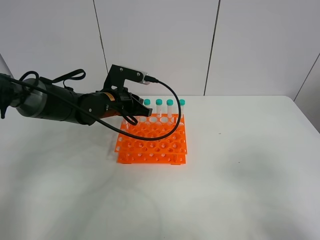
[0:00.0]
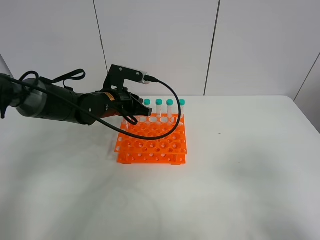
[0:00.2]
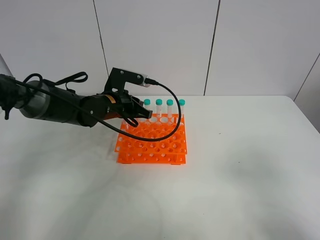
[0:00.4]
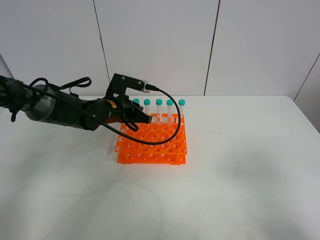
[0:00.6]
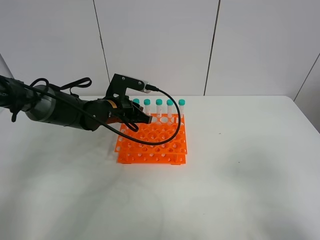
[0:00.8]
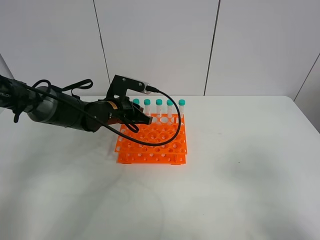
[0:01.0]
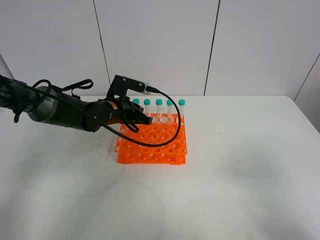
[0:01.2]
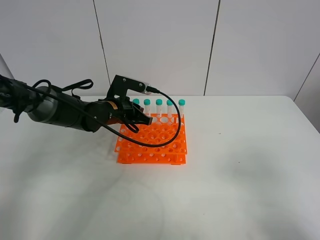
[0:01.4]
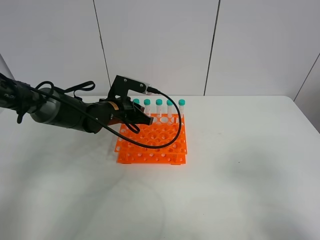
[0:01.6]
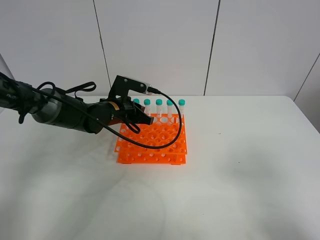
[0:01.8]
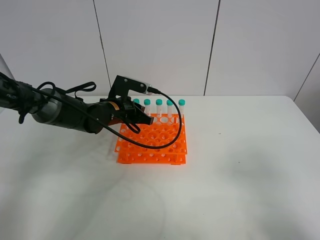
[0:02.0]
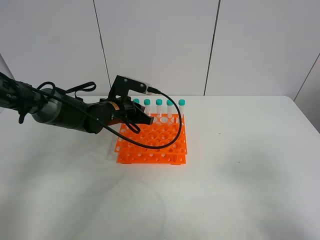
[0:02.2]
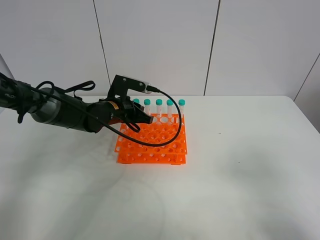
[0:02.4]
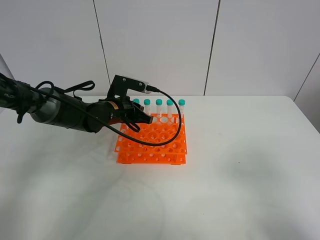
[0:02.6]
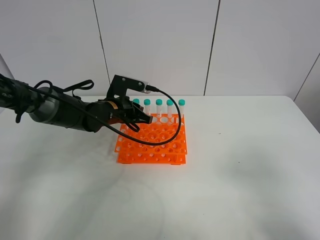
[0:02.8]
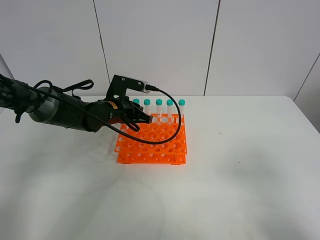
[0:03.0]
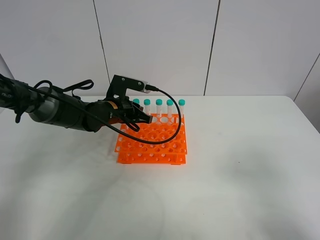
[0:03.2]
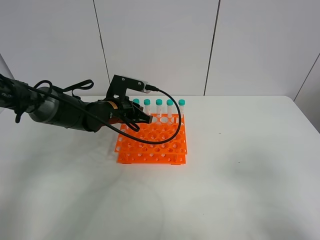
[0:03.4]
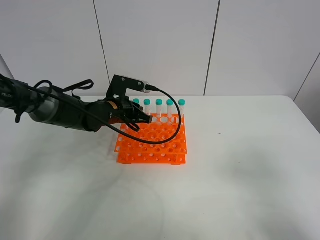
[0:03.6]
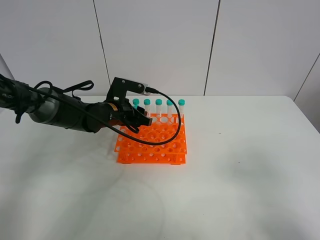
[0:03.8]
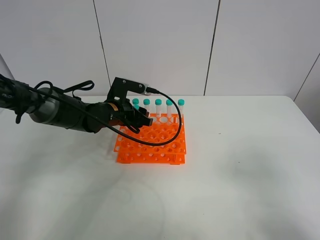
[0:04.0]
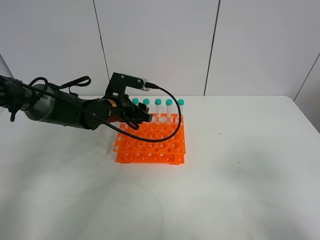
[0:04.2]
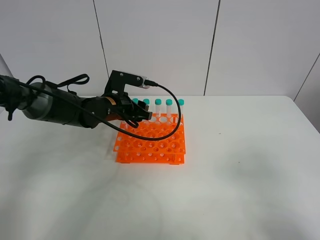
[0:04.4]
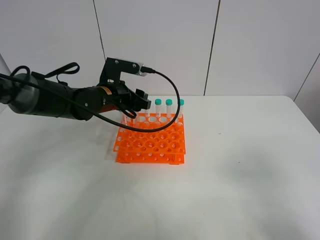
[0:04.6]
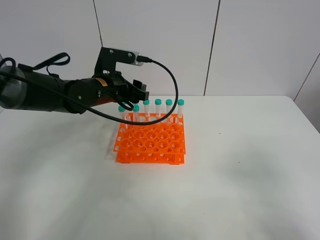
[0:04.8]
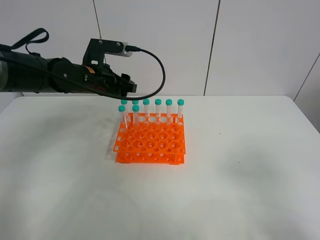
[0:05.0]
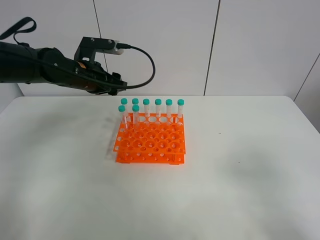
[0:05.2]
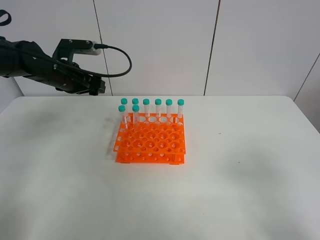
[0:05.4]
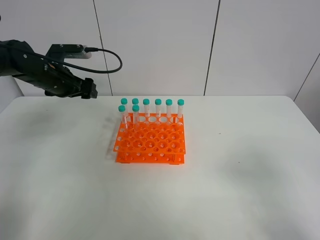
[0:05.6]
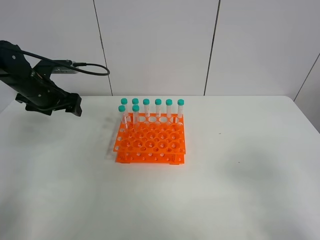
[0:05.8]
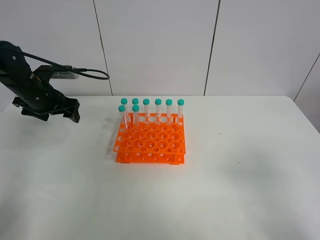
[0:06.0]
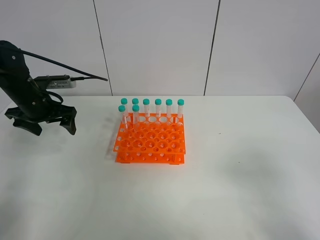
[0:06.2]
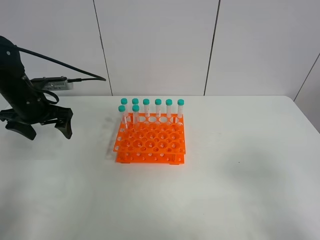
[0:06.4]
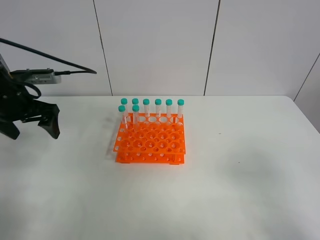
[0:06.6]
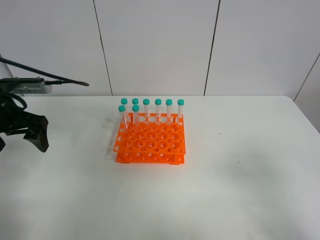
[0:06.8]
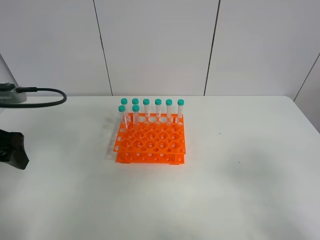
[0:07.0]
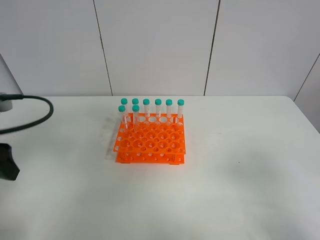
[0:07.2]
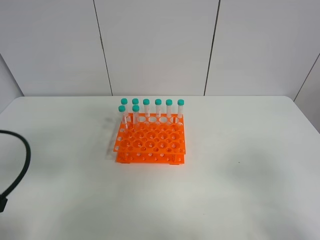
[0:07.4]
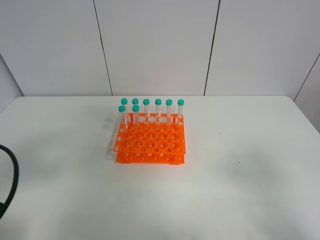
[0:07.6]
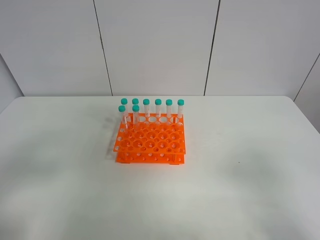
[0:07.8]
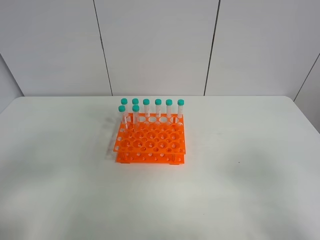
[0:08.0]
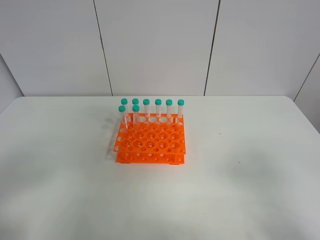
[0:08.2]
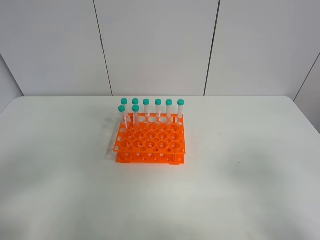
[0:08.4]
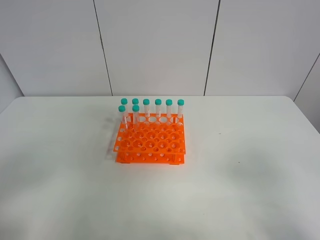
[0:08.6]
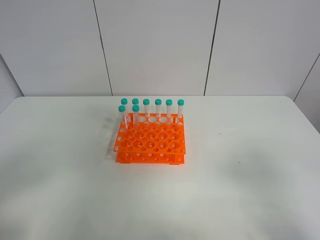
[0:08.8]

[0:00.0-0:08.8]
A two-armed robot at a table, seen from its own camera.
Task of the whole recording: Put the test tube on the table back onto the test tube rack.
Step, 0:00.0 to 0:05.2: Place the test tube on the test tube rack with the left gripper.
0:00.0 to 0:01.4: The grippers move only a little.
0:01.4 to 0:03.0: Both grippers stay put.
0:03.0 to 0:04.4: The left gripper opens.
0:04.4 to 0:05.8: The left gripper goes roughly 15 cm to the left.
0:05.8 to 0:07.4: The left gripper is displaced backward by some 30 cm.
0:07.4 to 0:08.8: The left gripper shifts about 10 cm backward.

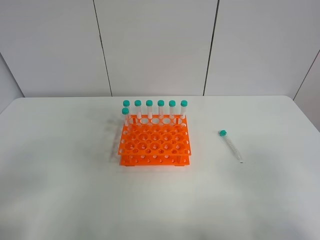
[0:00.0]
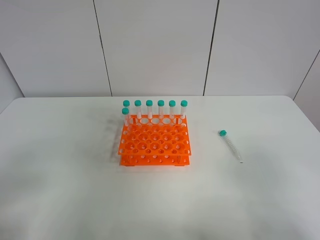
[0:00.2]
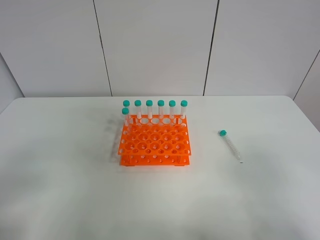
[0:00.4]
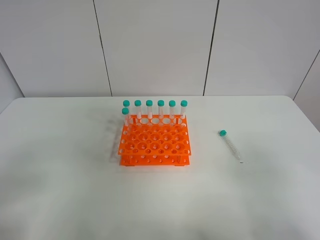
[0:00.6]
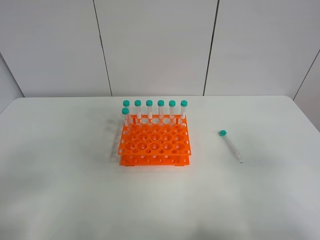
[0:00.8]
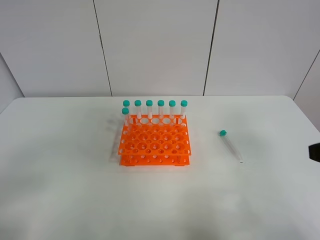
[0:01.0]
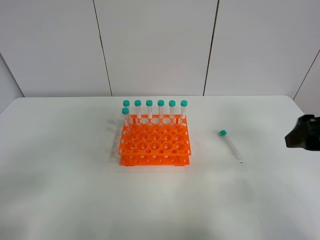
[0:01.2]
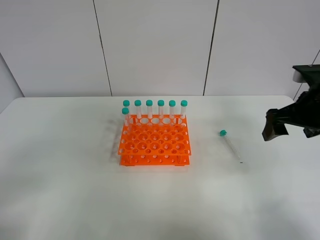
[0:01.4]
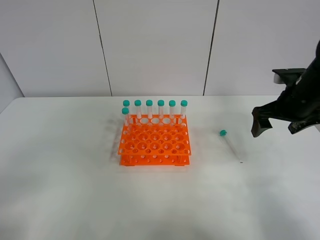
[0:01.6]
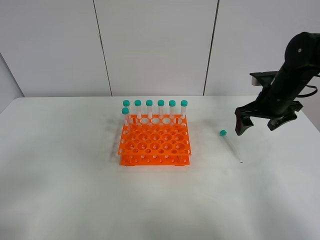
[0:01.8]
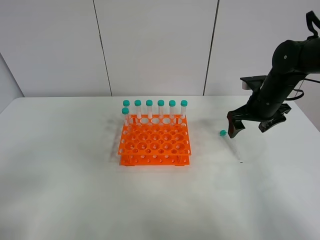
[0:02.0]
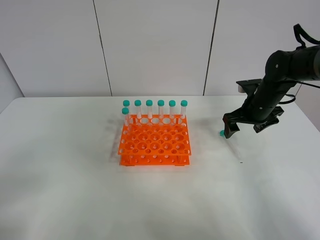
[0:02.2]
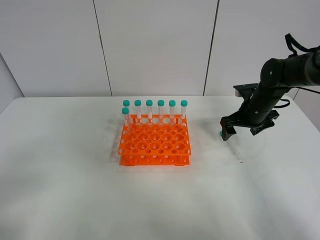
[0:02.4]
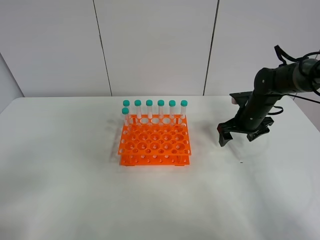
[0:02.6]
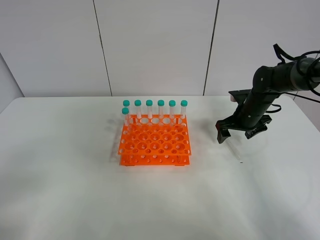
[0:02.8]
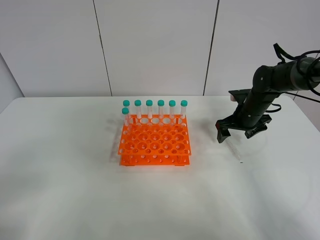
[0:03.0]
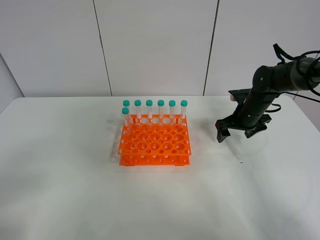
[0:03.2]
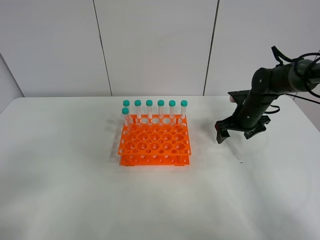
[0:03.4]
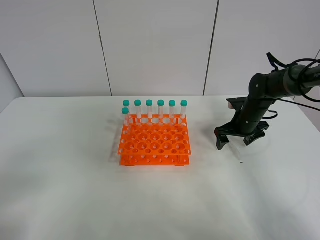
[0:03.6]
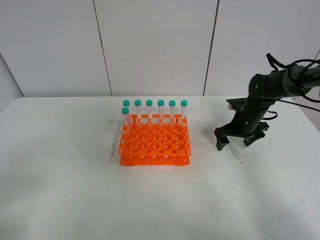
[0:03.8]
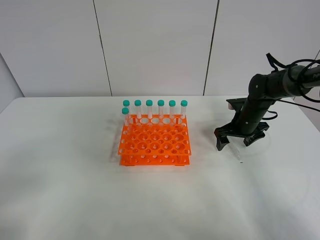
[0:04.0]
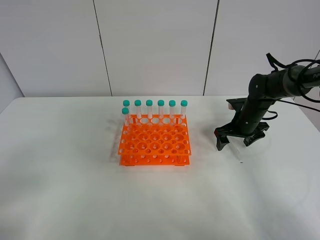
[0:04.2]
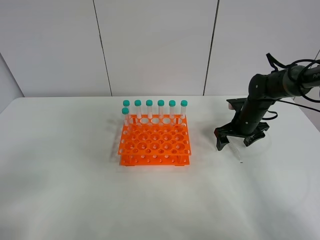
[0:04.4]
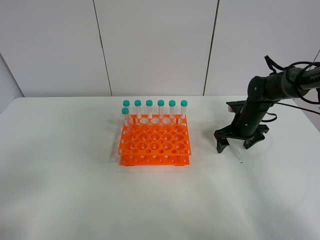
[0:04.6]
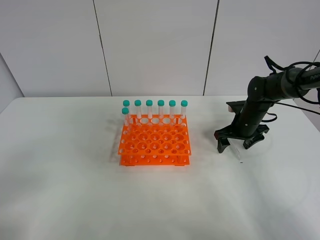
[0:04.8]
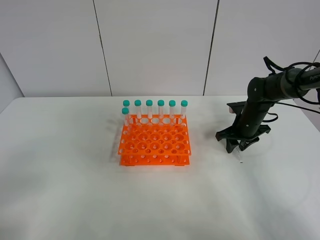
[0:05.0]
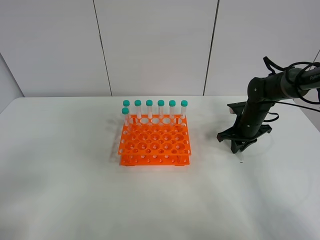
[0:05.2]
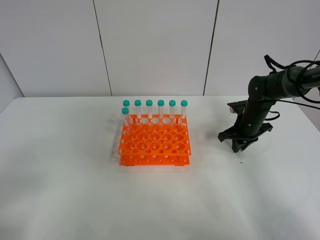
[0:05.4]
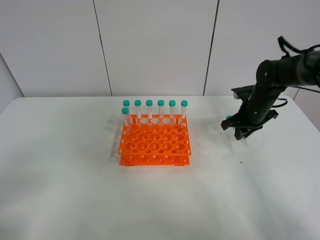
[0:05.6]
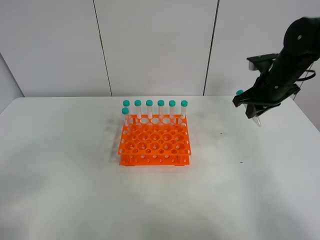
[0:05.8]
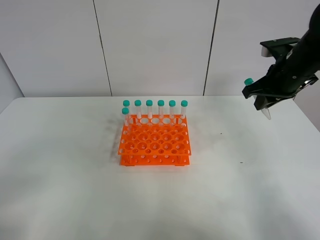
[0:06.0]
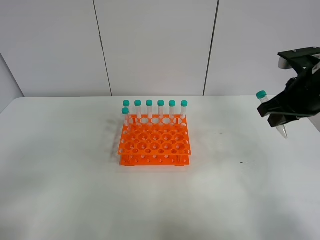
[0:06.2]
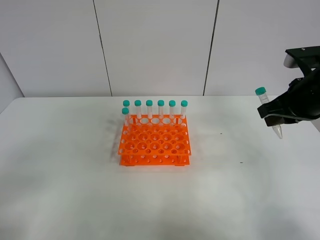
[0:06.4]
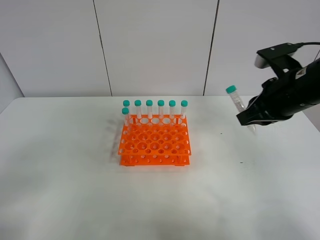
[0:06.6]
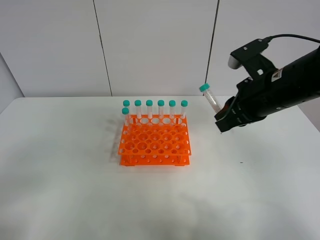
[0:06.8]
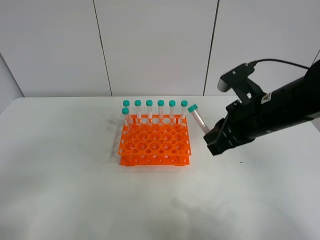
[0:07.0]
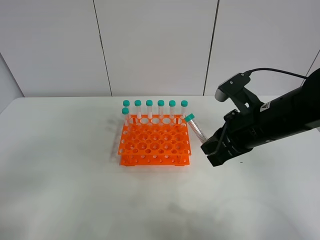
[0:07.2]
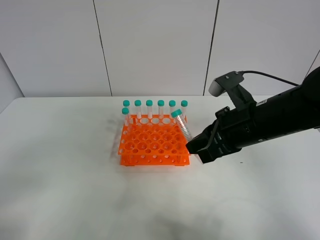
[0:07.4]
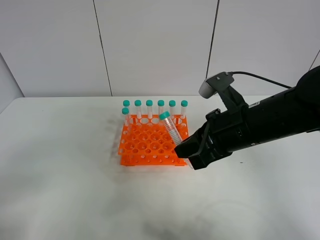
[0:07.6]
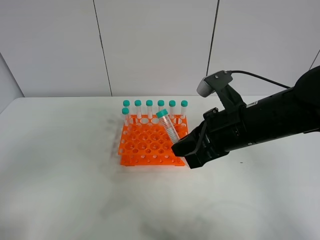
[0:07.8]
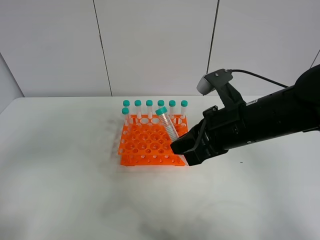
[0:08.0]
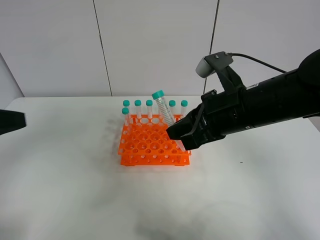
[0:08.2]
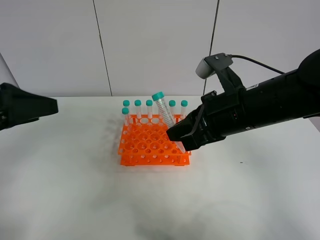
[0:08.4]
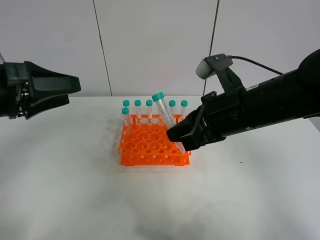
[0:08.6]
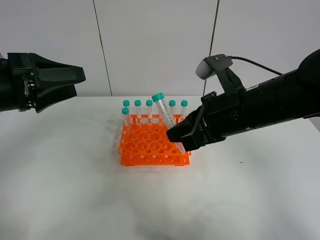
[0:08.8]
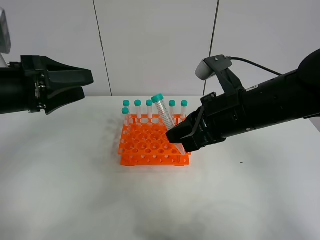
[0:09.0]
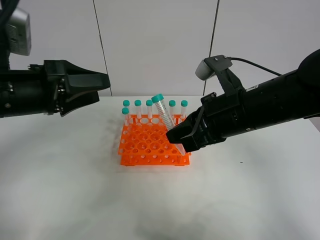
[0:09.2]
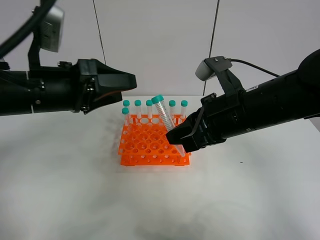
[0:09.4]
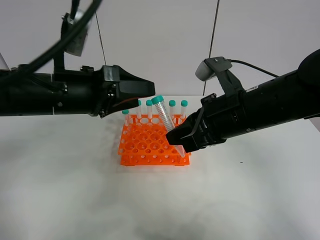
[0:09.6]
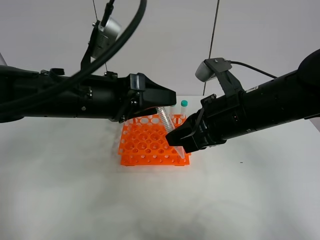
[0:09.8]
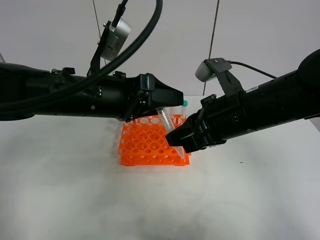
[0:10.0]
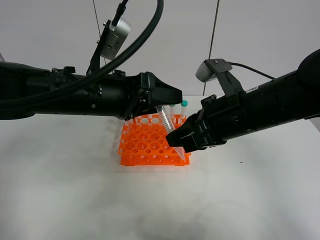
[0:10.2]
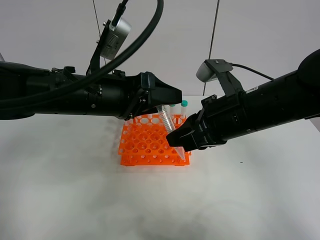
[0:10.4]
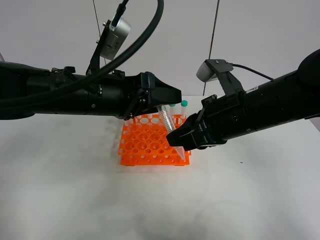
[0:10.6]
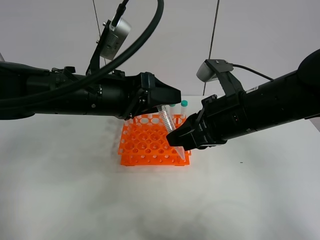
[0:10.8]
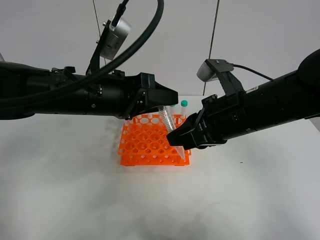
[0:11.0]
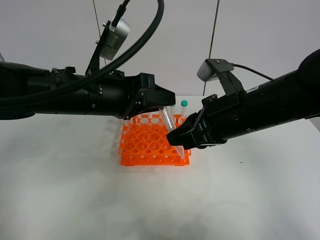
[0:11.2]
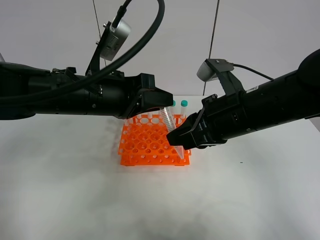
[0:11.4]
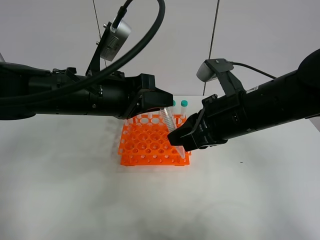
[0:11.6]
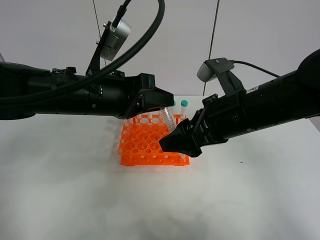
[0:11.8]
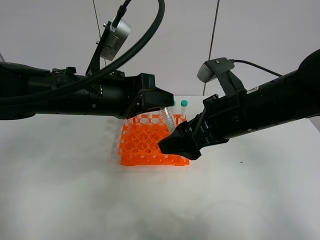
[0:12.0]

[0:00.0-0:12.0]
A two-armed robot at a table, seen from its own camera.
Task of the whole recording: Put the test tube on the table back onto the test tube rack.
Step, 0:00.0 to 0:05.2: Pick up the test tube with the right gripper.
Step, 0:05.4 to 0:11.8: Move the test tube from the right gripper to the left gripper.
0:00.0 to 0:01.6: The right gripper shifts some 35 cm forward.
0:01.6 to 0:03.0: The right gripper is displaced downward and forward by roughly 15 cm.
0:03.0 to 0:04.4: There are only small adjustments of the grippers.
0:04.4 to 0:06.0: The right gripper moves upward and backward, about 20 cm, and closes its fingers.
0:06.0 to 0:07.6: The right gripper moves to the left and backward, roughly 15 cm.
0:07.6 to 0:09.0: The left gripper heads forward, covering some 20 cm.
0:09.0 to 0:10.4: The left gripper is displaced to the right by roughly 10 cm.
0:10.4 to 0:12.0: The right gripper opens its fingers, while the left gripper closes.

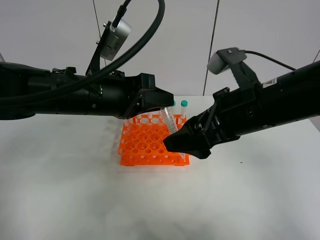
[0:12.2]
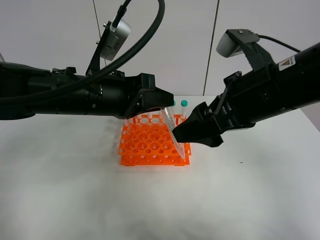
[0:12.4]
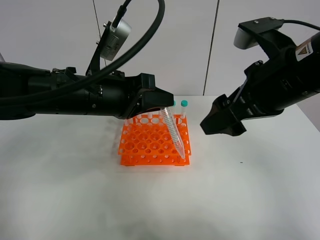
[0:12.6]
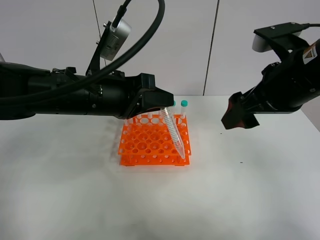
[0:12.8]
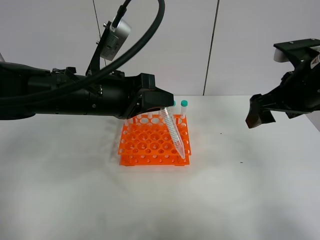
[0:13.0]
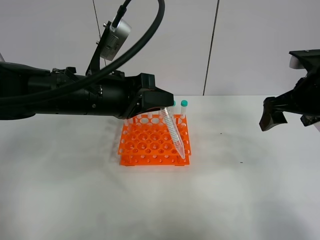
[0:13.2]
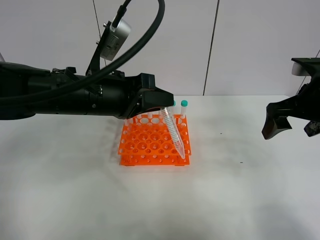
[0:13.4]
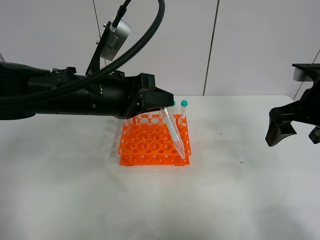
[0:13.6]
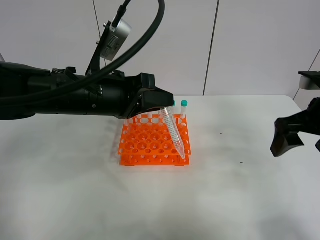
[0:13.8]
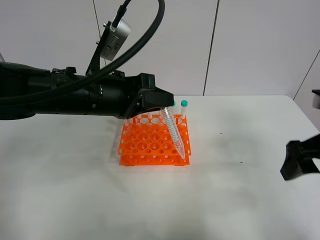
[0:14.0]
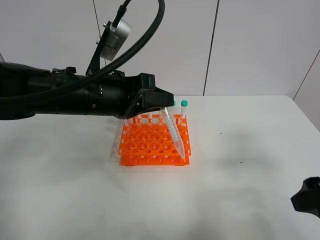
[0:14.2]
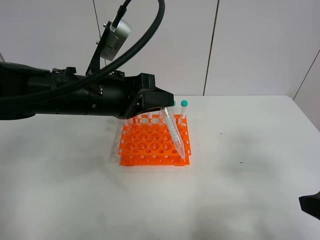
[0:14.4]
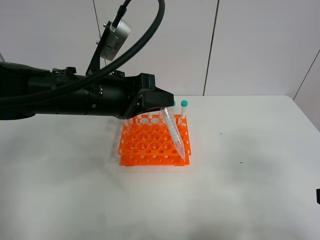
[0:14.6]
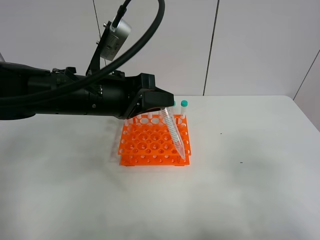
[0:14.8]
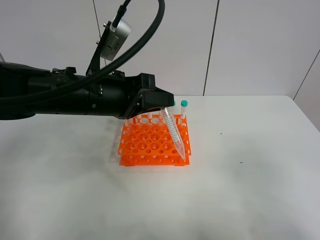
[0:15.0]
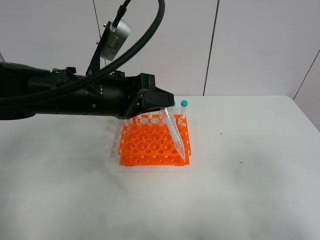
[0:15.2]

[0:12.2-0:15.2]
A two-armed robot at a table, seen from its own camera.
Task of the whole recording: Put the test tube on the table back onto the test tube rack.
0:12.2 to 0:13.8: The right gripper goes approximately 15 cm to the right.
0:13.8 to 0:15.2: The right gripper heads backward, covering approximately 20 cm.
